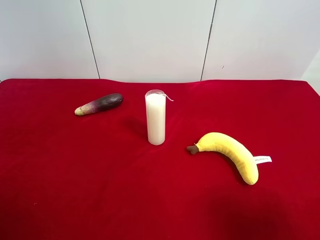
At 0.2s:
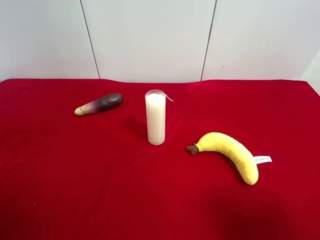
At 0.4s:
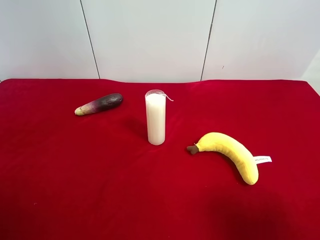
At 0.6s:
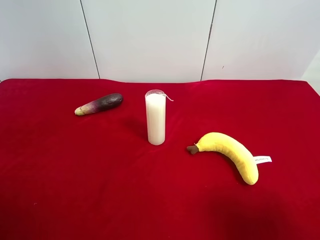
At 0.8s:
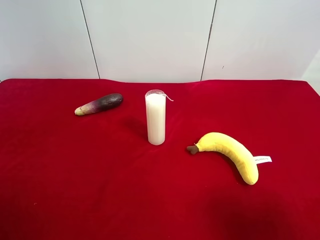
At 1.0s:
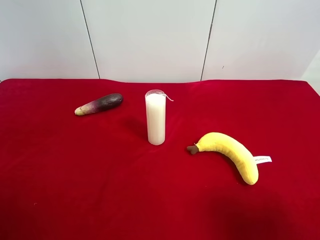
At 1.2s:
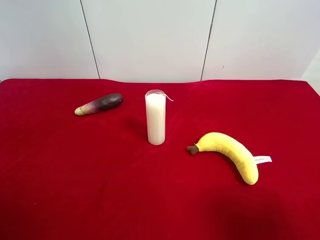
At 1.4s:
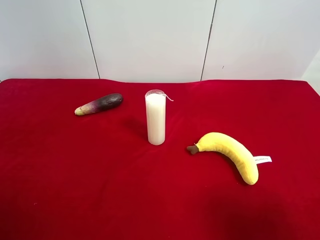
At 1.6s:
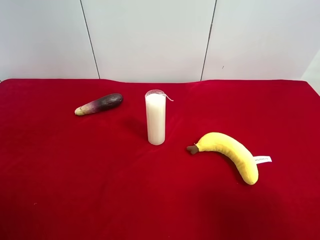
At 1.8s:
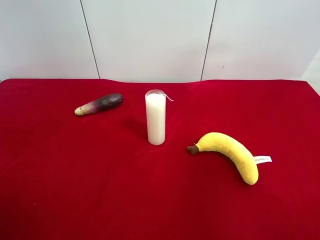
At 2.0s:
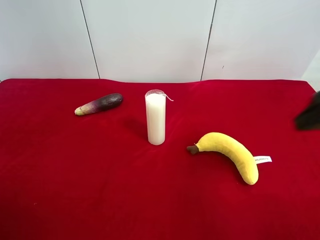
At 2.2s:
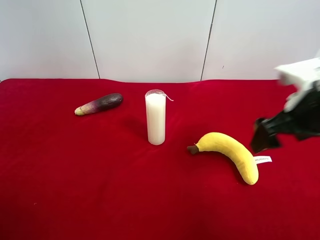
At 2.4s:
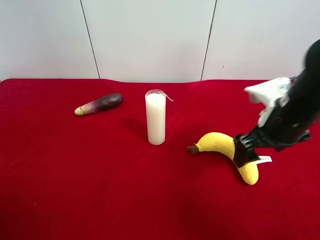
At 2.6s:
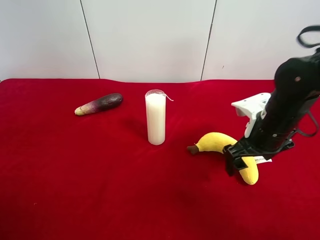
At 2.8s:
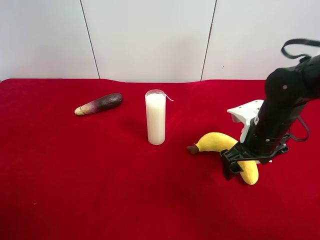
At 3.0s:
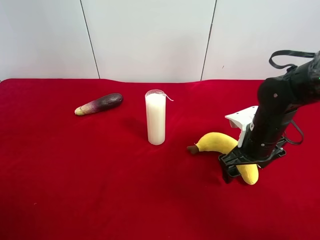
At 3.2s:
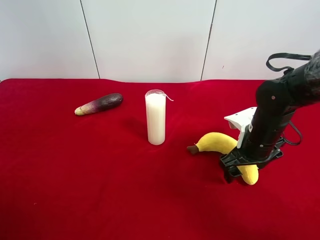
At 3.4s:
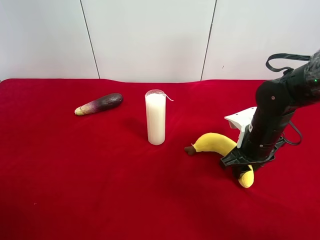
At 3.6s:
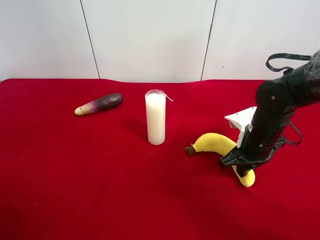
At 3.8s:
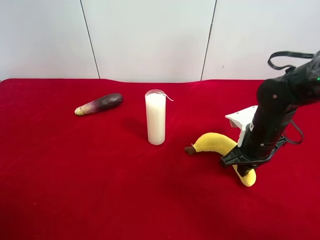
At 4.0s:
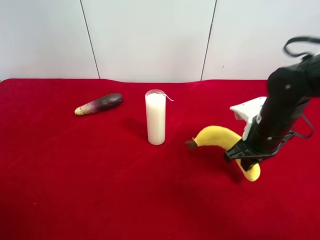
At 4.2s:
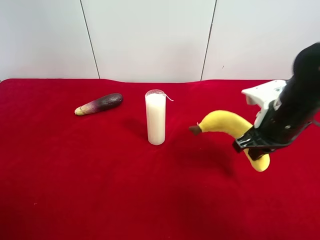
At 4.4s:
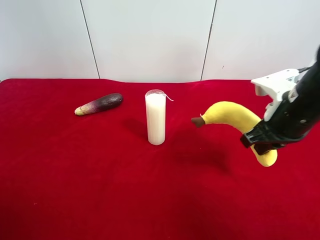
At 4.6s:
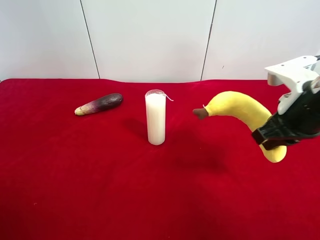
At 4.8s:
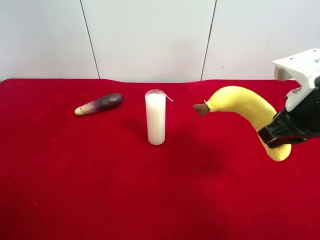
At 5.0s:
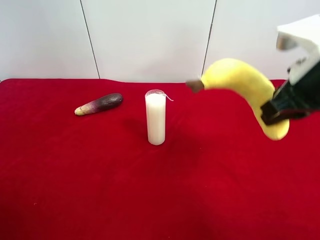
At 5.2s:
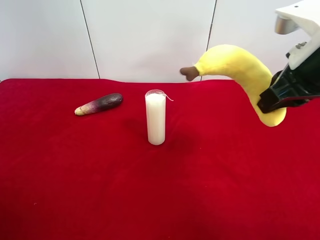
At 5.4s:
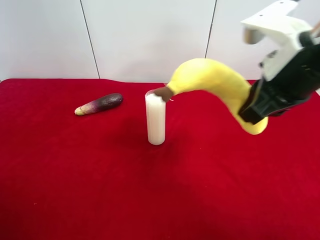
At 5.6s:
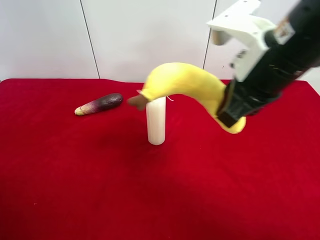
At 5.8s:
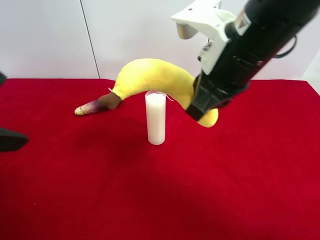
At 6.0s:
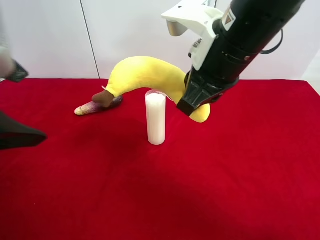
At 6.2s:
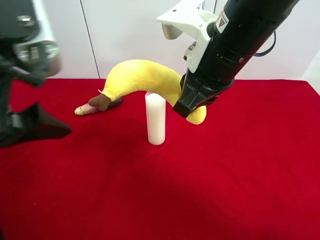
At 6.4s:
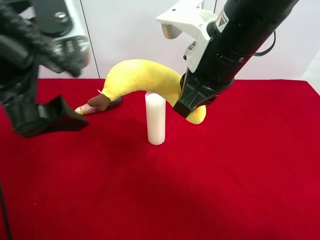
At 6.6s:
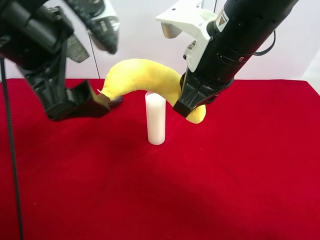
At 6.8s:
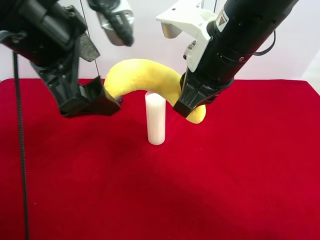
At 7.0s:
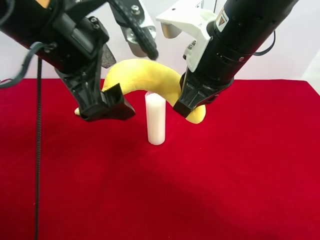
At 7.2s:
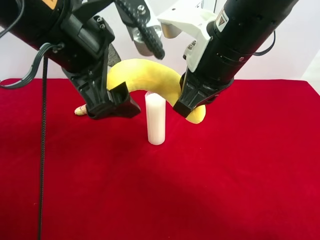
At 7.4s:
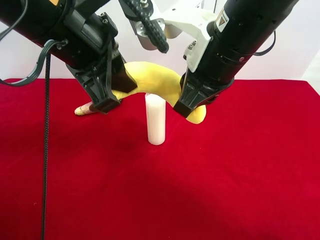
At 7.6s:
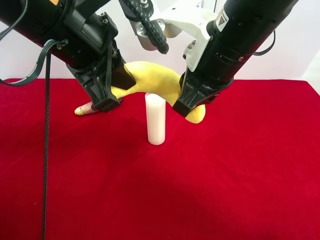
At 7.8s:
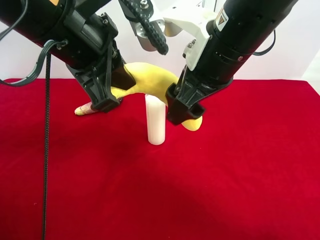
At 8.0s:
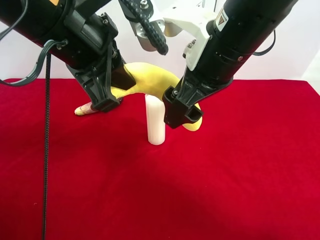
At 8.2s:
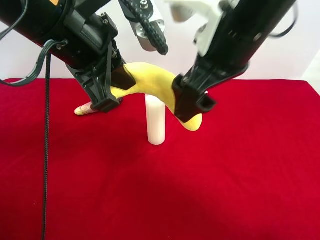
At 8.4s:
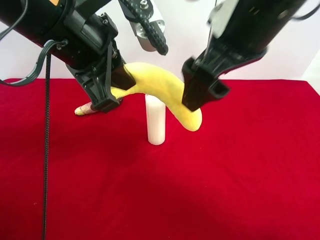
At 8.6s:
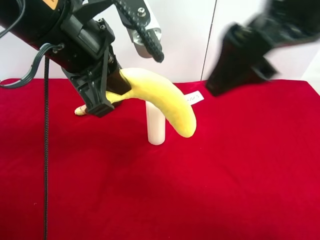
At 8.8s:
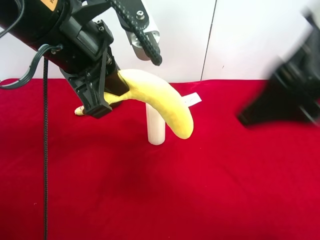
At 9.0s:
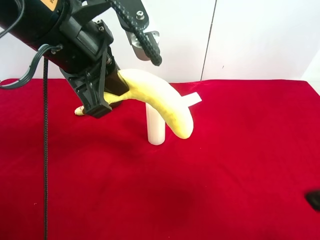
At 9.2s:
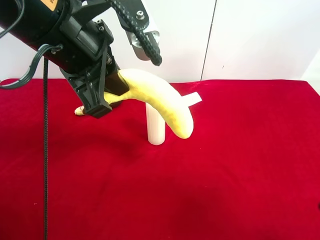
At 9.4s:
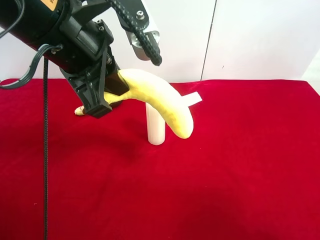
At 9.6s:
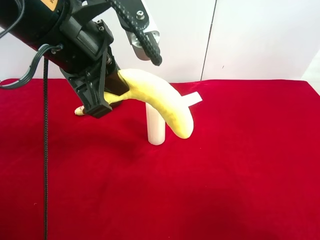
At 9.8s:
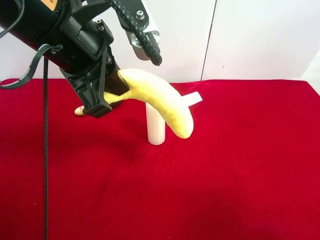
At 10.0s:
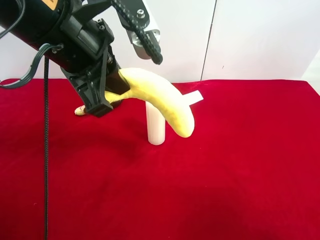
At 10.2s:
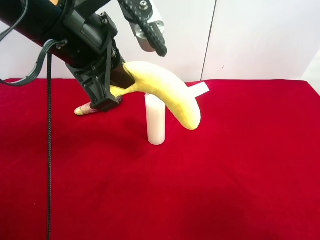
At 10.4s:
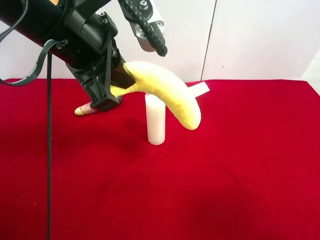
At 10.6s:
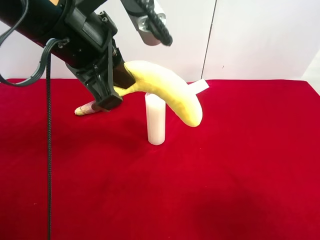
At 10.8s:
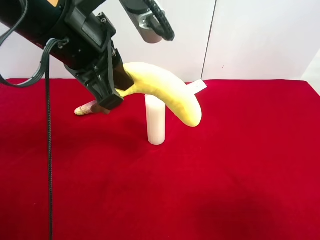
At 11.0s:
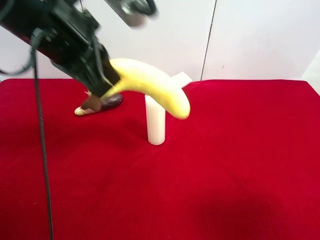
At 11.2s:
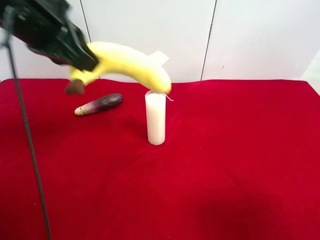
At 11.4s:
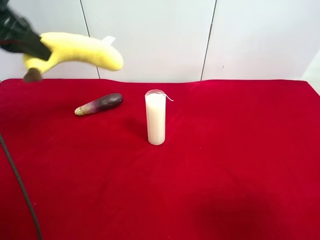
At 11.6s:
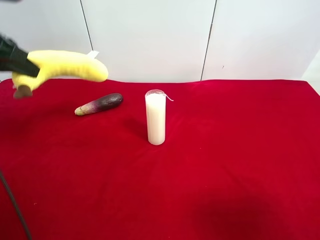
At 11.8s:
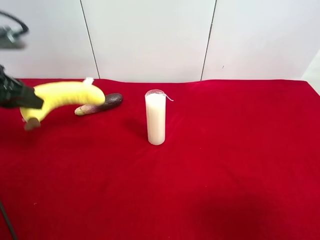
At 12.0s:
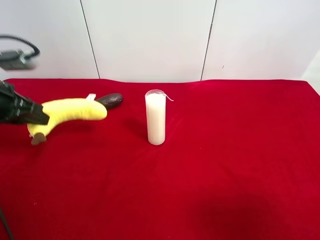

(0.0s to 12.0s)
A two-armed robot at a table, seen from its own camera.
Task of the whole recording: use the right gripper to pick up the item and transfer it from the right gripper to the left gripper.
Step, 0.0s - 3.4s: Use the right gripper to grab the plush banana on the right side of the table.
Step, 3.6s - 8.0s: Pass the plush banana to the left gripper.
1.6s - 3.0s: The right gripper is displaced forward and downward by some 30 cm.
3.0s - 4.4s: The right gripper goes some 10 cm upward, and closes its fingers.
4.4s - 6.0s: The left gripper goes roughly 20 cm forward, to the right and upward; the right gripper travels to the left and upward by about 15 cm.
6.0s - 7.6s: The left gripper goes approximately 10 cm to the right and forward, and closes up.
7.6s - 9.0s: The right gripper shifts roughly 25 cm backward and to the right, and opens its fingers.
9.0s - 10.4s: The right gripper changes place by some 5 cm.
10.4s - 12.0s: The left gripper shifts approximately 25 cm to the left and downward.

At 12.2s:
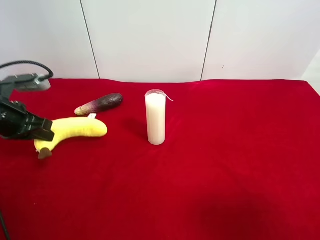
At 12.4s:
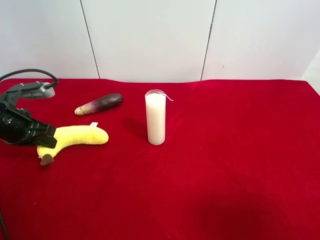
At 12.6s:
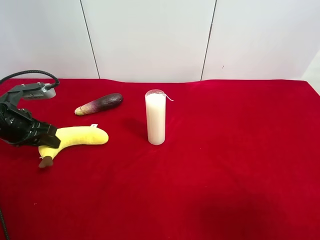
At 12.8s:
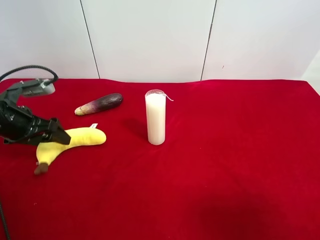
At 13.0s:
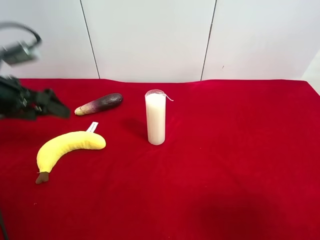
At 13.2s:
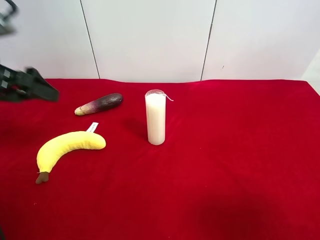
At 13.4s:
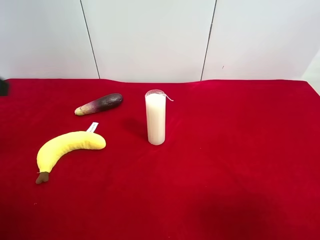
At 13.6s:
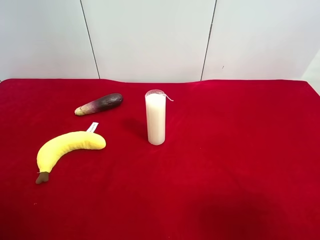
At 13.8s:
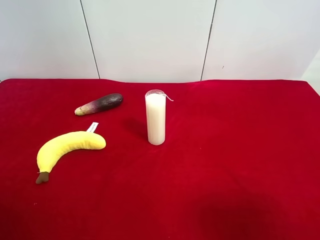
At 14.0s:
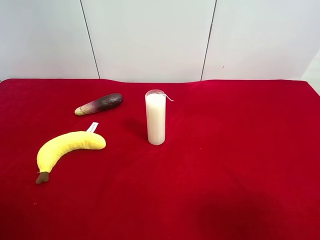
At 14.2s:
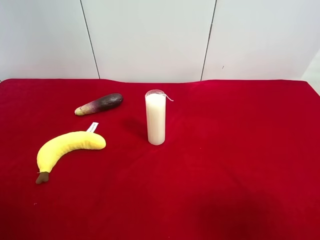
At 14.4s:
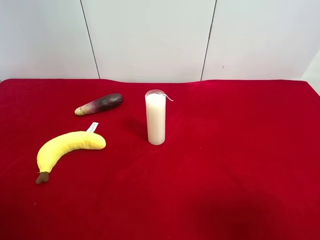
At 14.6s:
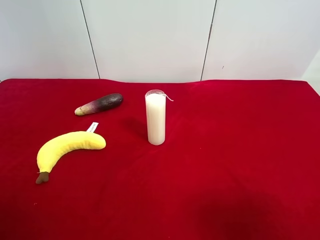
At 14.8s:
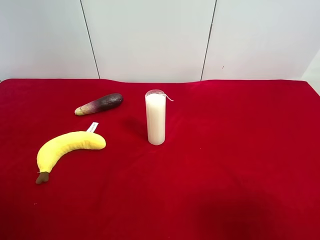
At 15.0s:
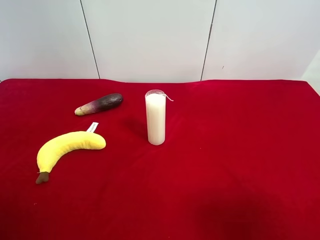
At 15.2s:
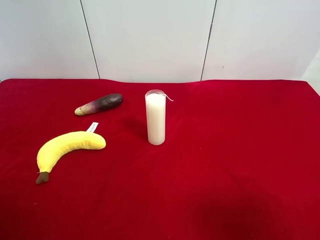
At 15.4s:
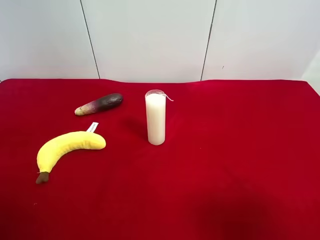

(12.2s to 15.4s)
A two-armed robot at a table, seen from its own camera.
Task of the whole recording: use the right gripper to pick up the item and transfer it from the right gripper to the left gripper.
12.2s - 13.8s: The left gripper heads backward and upward, covering approximately 25 cm, and opens up.

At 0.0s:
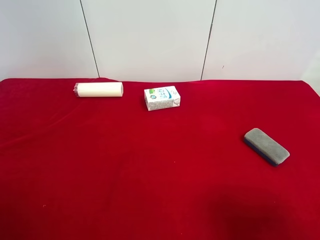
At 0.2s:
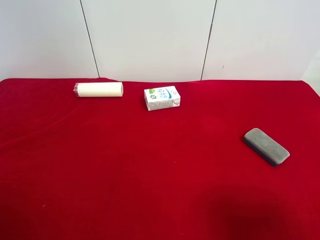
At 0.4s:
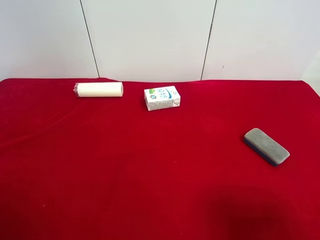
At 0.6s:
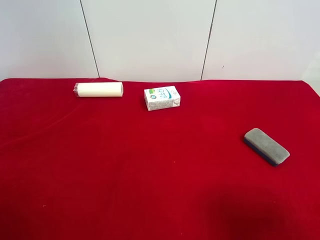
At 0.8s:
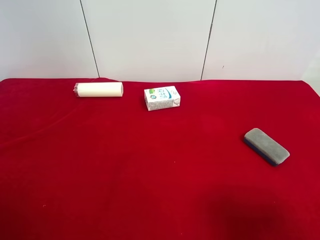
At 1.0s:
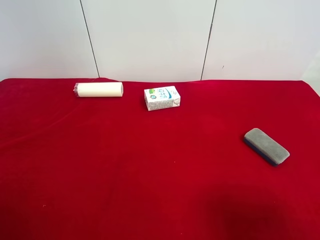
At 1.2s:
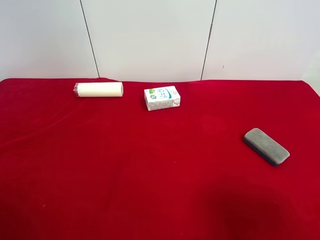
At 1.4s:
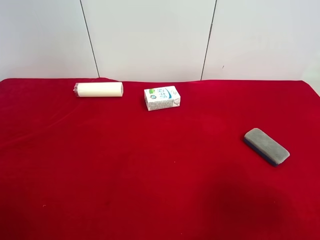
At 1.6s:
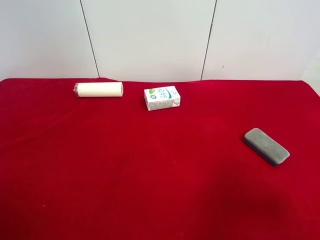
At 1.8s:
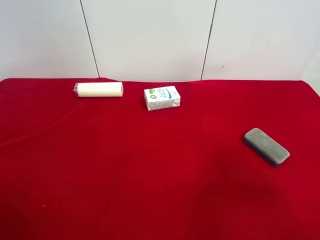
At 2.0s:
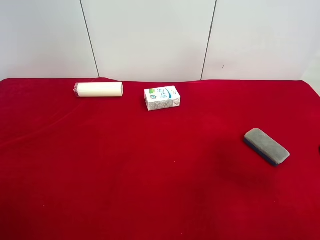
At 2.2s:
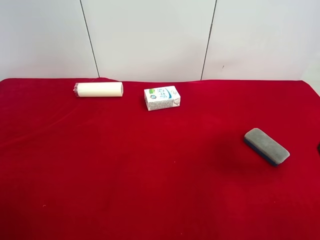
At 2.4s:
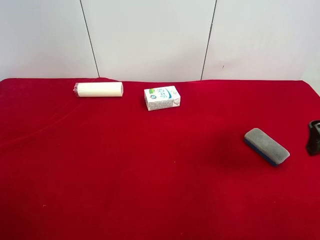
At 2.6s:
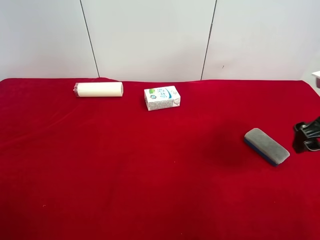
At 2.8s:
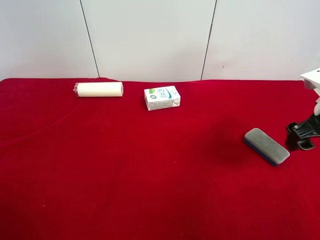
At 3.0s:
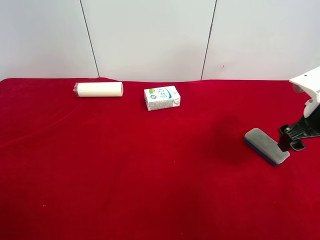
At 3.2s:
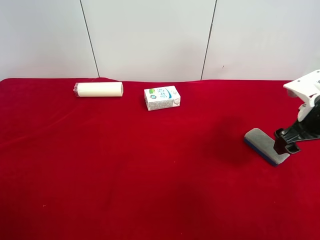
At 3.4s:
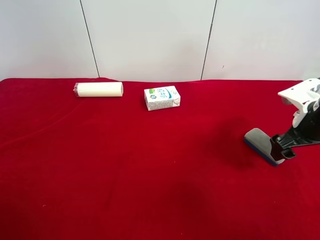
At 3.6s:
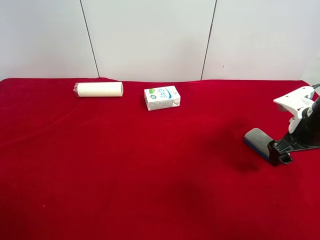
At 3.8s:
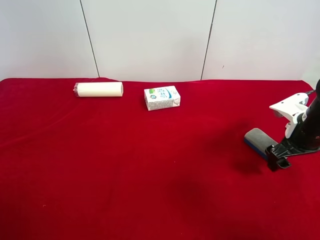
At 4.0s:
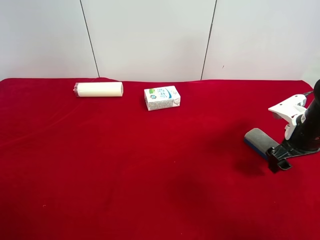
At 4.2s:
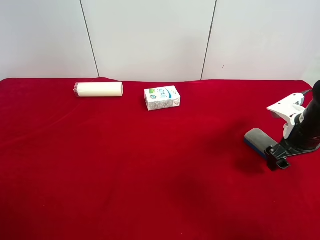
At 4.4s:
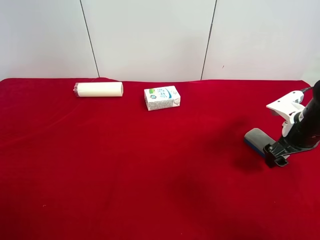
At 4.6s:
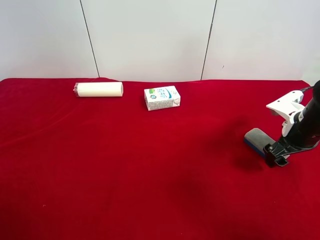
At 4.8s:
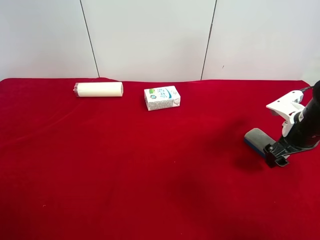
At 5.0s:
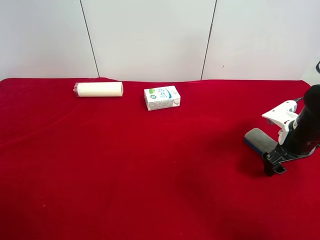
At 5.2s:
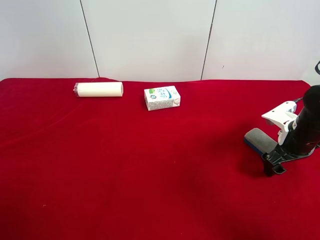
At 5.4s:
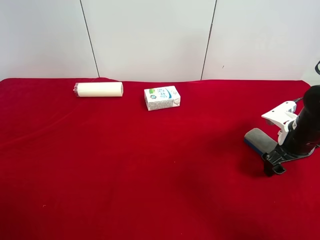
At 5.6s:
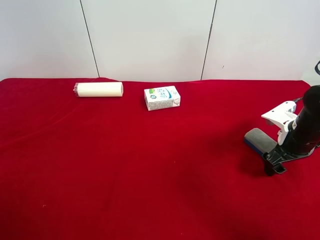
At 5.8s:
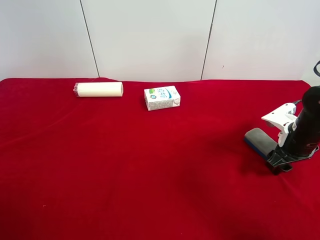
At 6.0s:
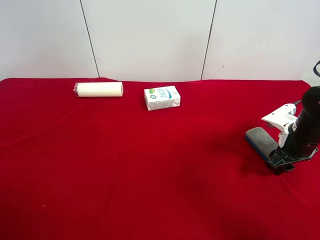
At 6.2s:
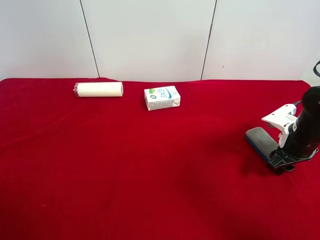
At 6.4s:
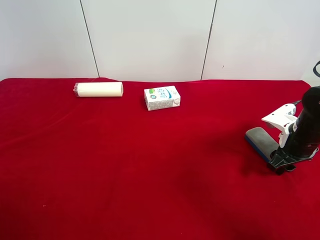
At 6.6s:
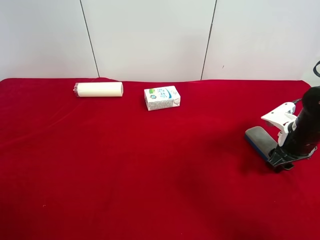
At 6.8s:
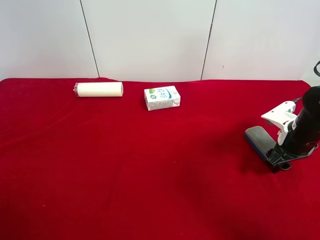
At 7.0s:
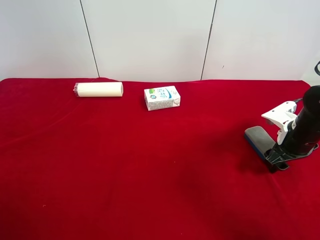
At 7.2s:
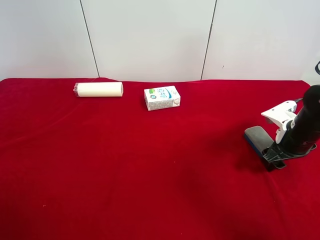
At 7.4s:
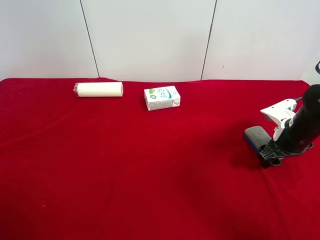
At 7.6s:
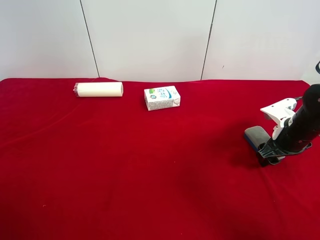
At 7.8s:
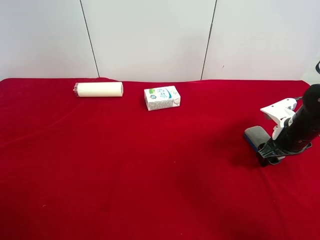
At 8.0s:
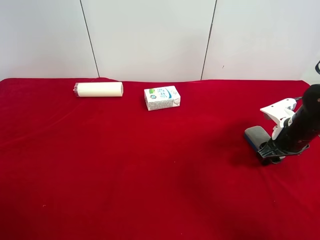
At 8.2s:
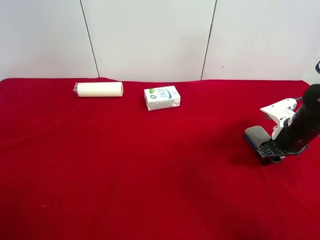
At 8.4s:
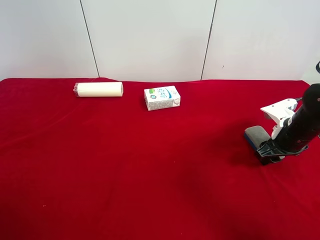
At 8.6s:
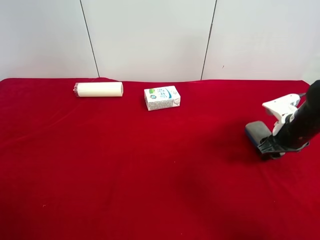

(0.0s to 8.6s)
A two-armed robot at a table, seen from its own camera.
Task of the whole recording: use the right gripper to pick up the item and transfer it from the right gripper to the left gripper.
Step, 0.0s - 8.0s: Use the right gripper to grab the blue blackboard erasure on the right side of the table.
1.4s - 2.8s: The right gripper shifts some 15 cm forward.
2.8s - 4.4s: The right gripper shifts some 10 cm downward.
4.4s - 5.8s: The right gripper closes.
5.8s - 8.6s: The grippers stay close to where they were, moving slightly.
